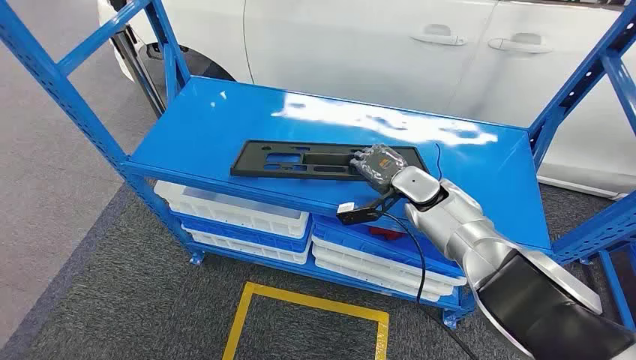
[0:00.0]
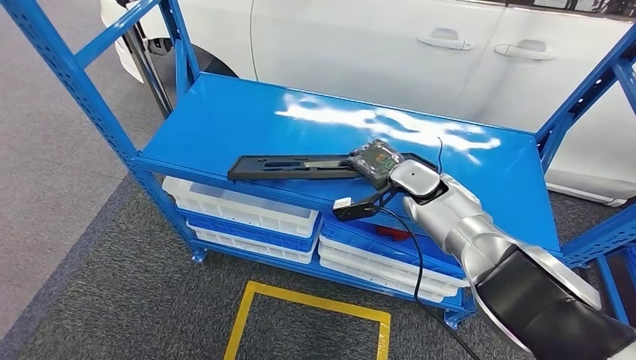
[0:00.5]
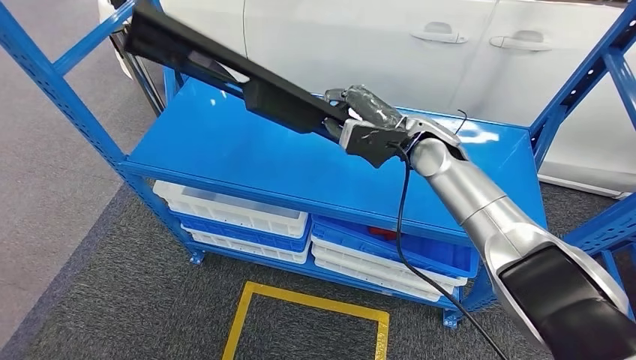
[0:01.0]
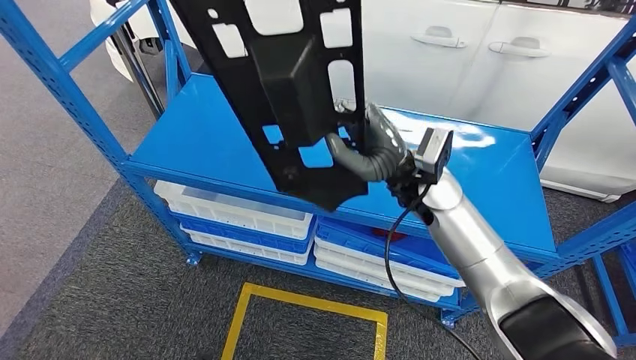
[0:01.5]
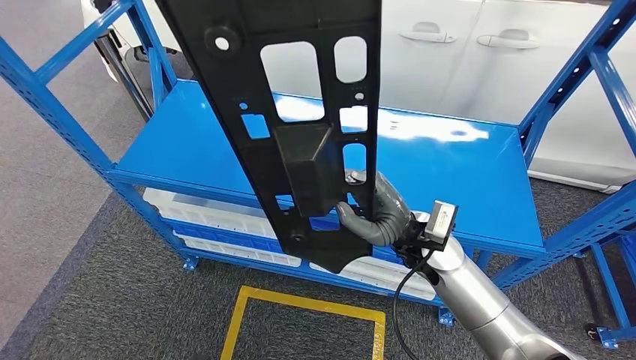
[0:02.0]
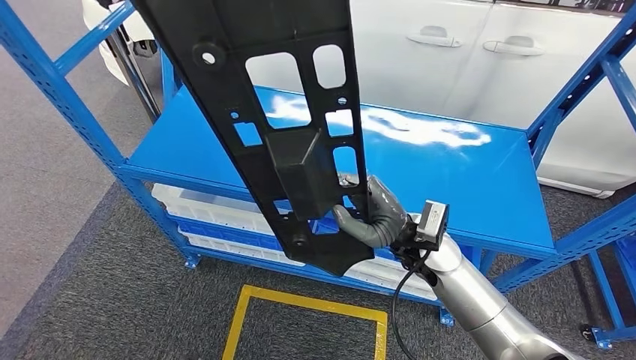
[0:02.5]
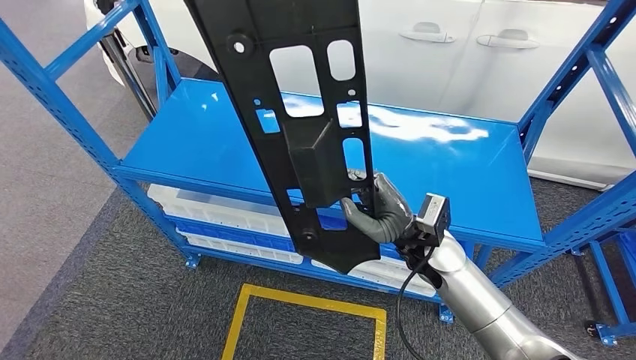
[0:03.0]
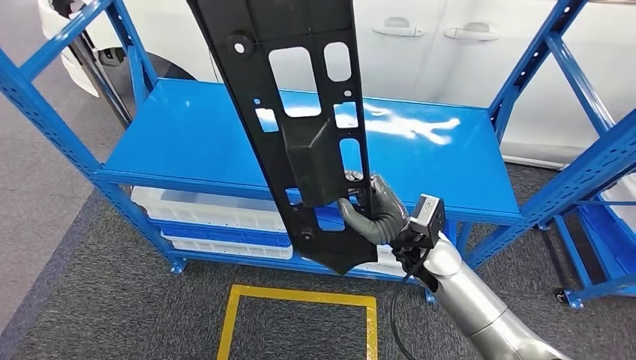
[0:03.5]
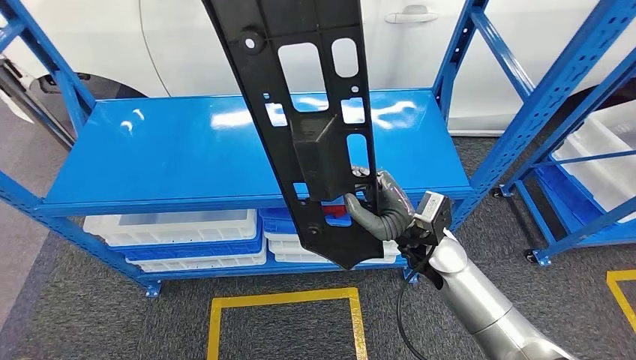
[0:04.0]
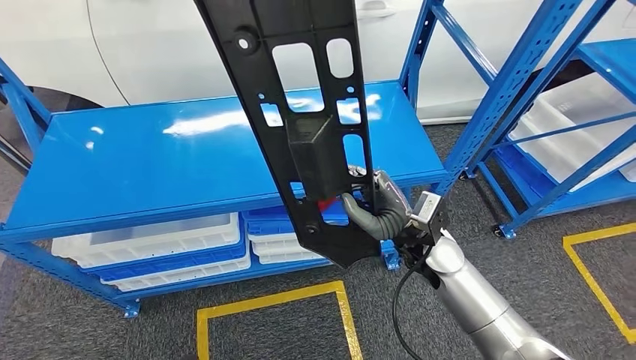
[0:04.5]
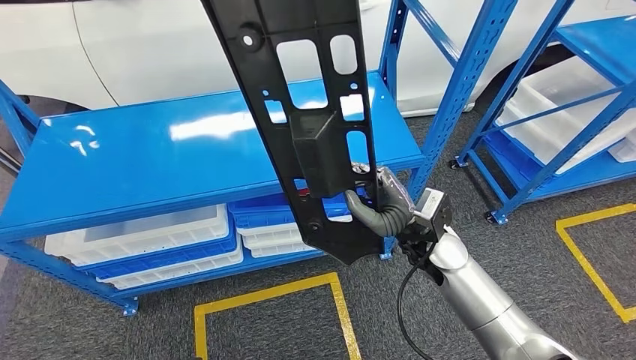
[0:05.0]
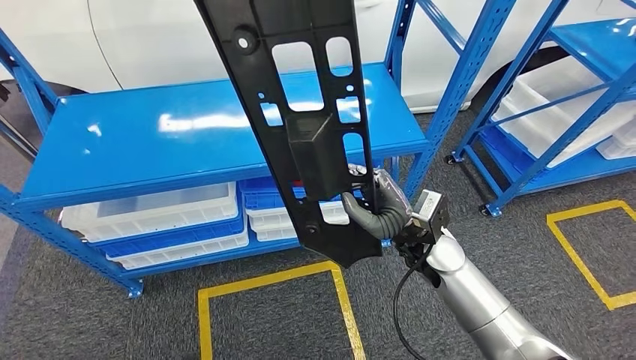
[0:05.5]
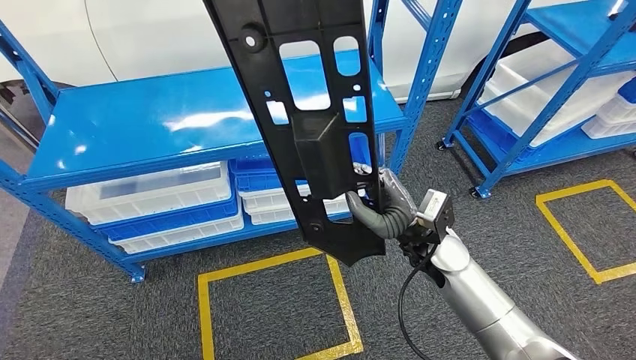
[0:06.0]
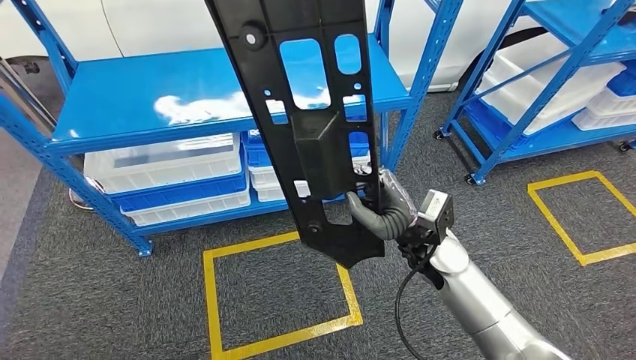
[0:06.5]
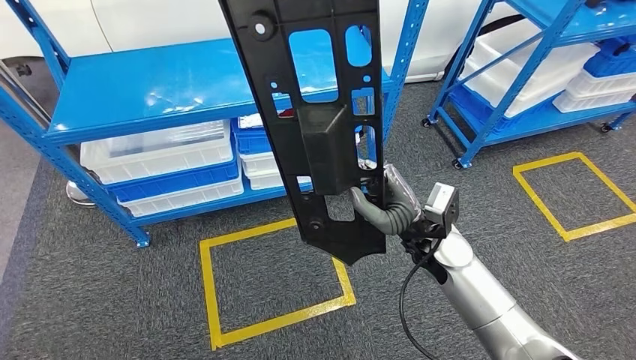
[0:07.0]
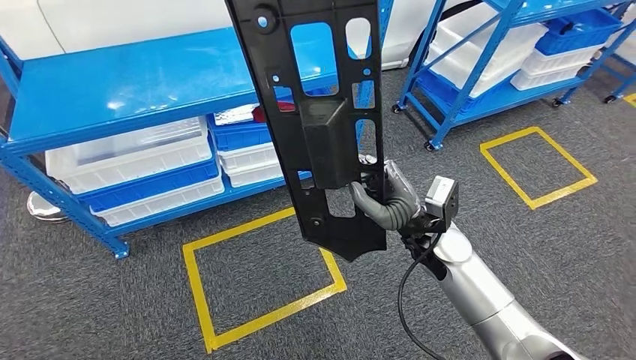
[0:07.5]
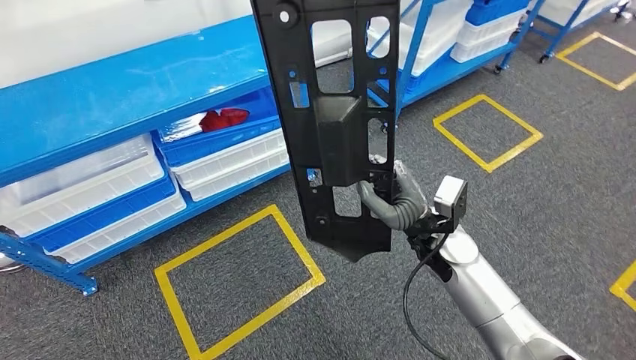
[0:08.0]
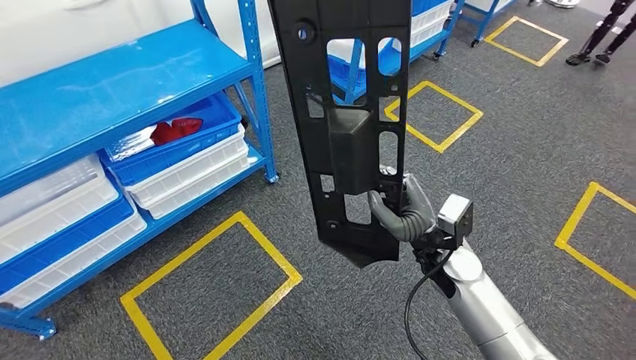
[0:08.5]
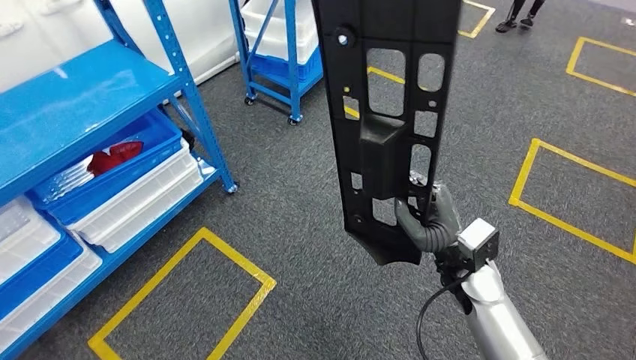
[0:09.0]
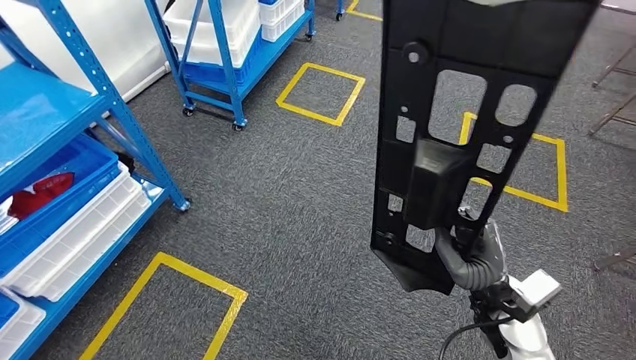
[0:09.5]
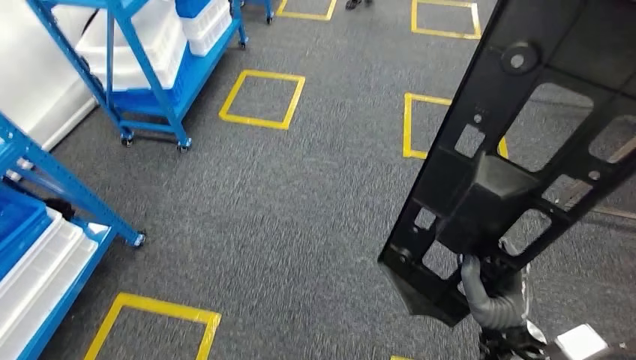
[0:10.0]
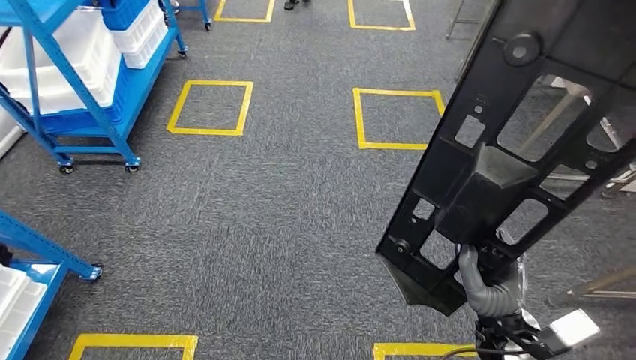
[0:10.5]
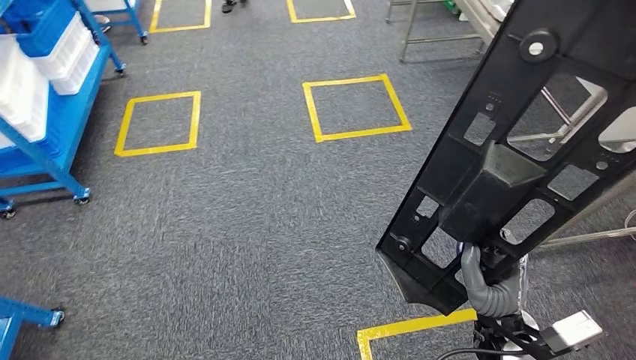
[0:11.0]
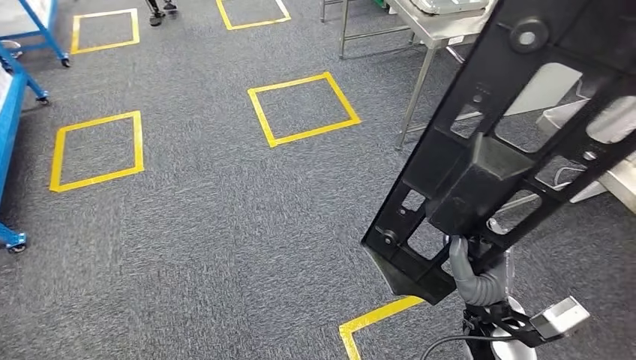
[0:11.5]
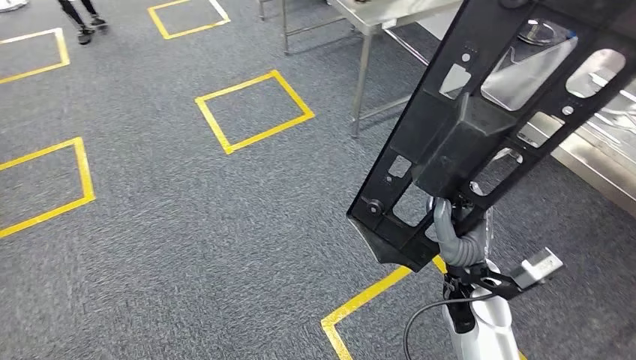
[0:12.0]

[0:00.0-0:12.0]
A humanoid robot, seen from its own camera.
Step, 0:00.0 to 0:02.5: Pick up the large material from the shelf.

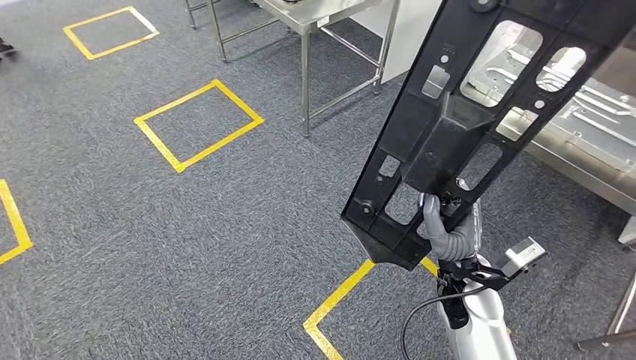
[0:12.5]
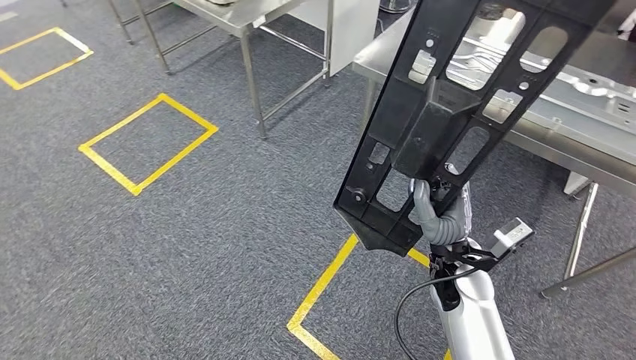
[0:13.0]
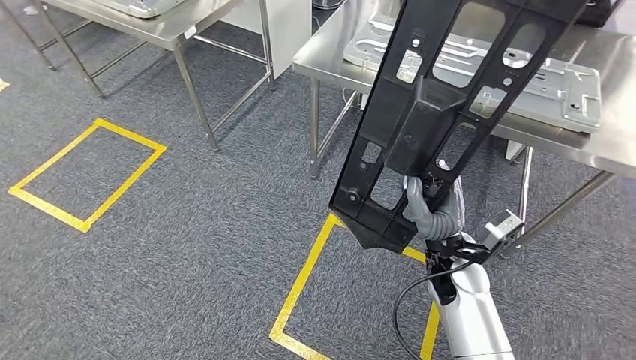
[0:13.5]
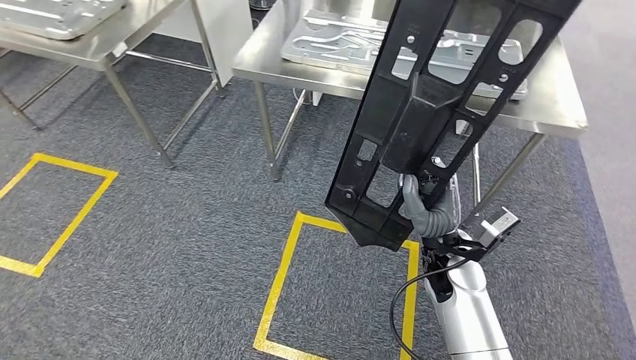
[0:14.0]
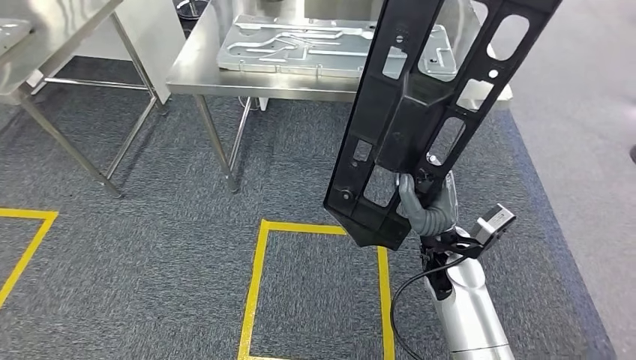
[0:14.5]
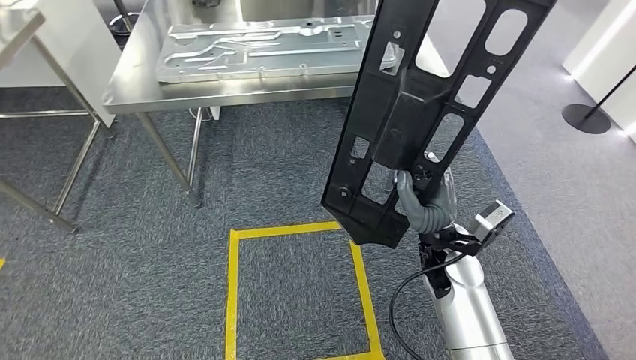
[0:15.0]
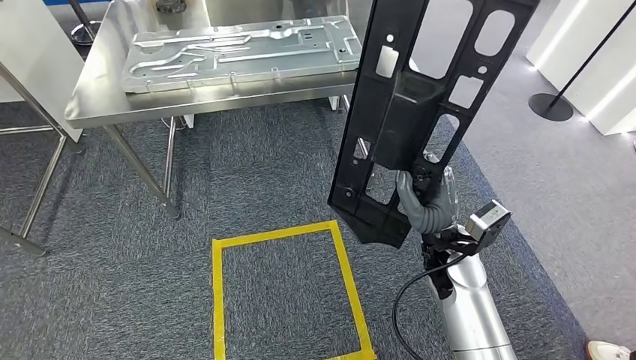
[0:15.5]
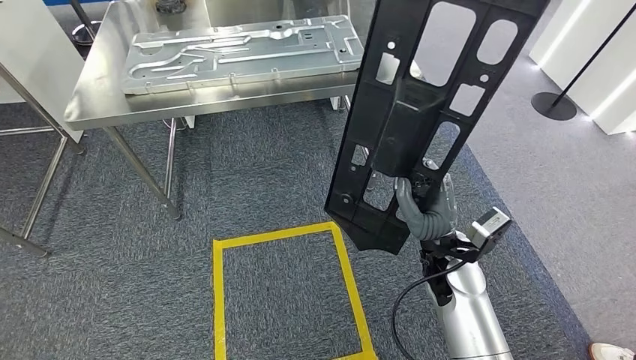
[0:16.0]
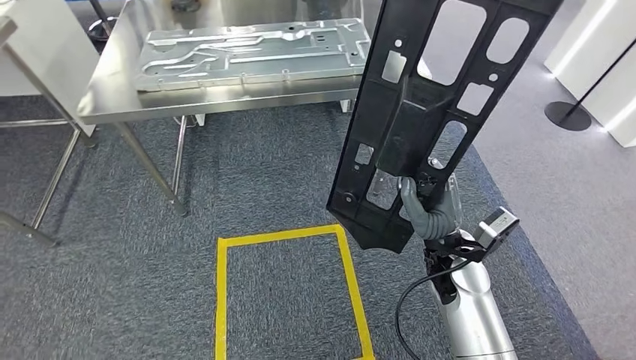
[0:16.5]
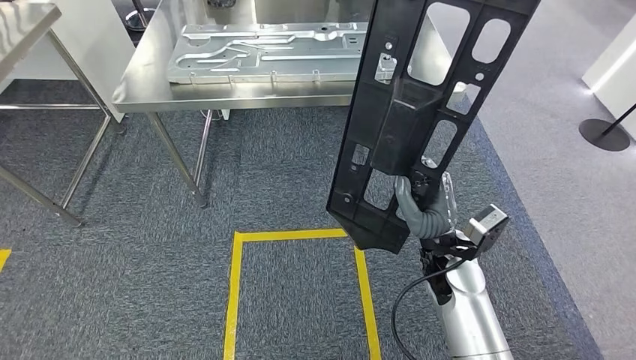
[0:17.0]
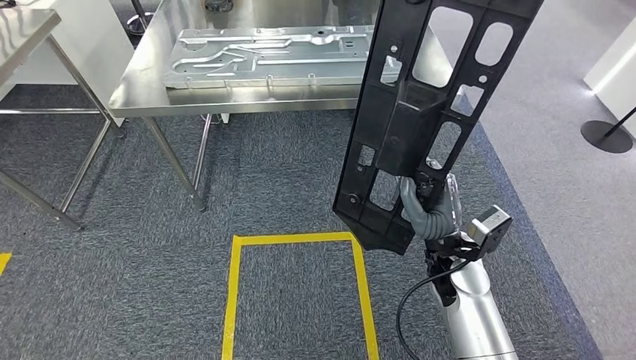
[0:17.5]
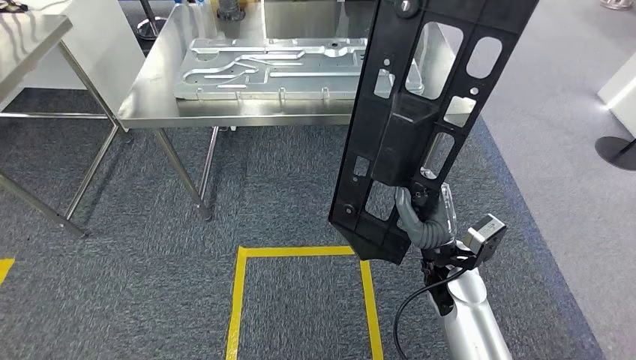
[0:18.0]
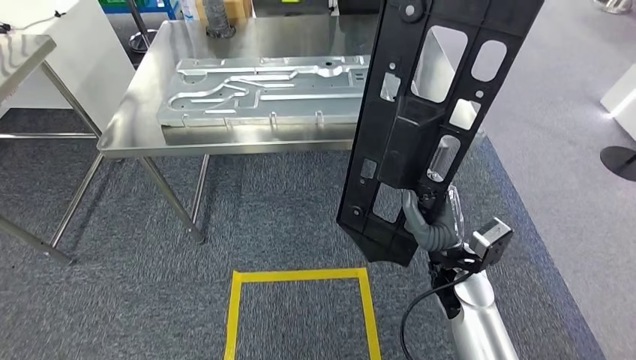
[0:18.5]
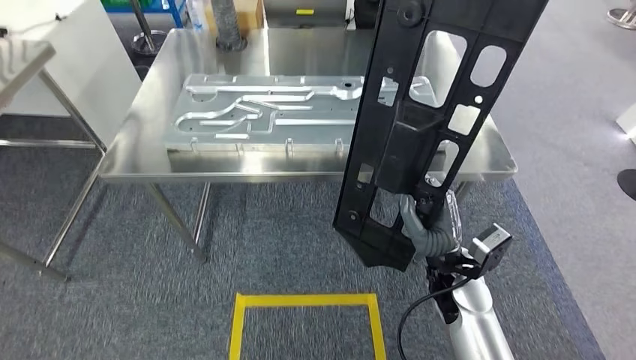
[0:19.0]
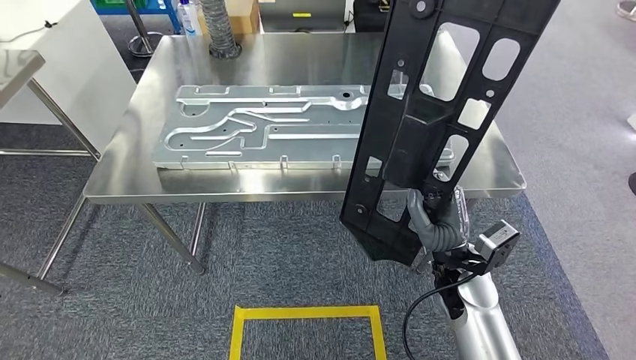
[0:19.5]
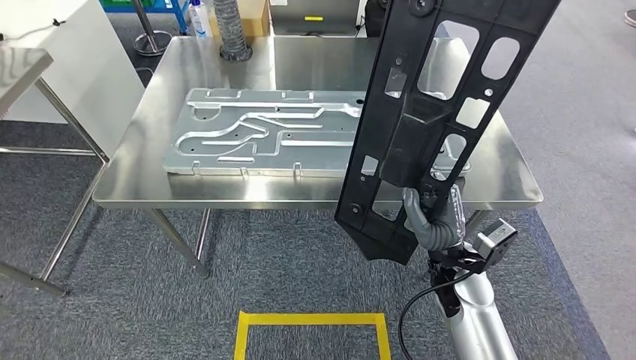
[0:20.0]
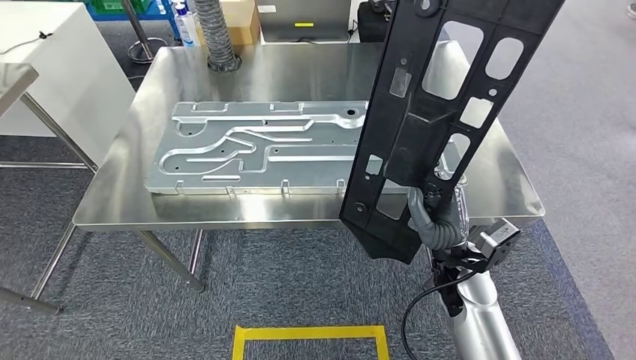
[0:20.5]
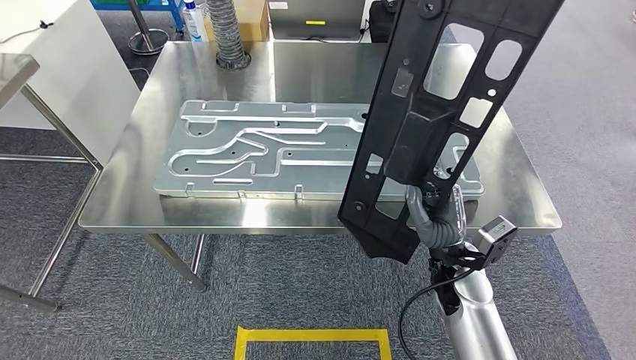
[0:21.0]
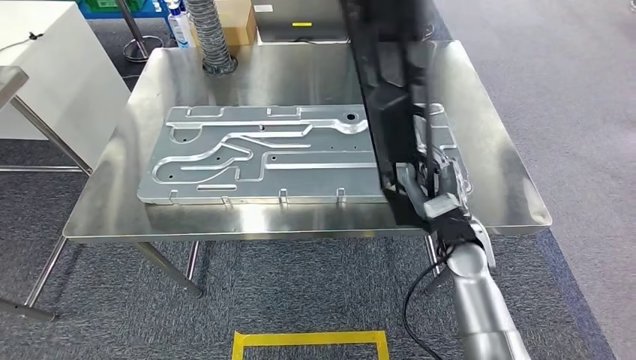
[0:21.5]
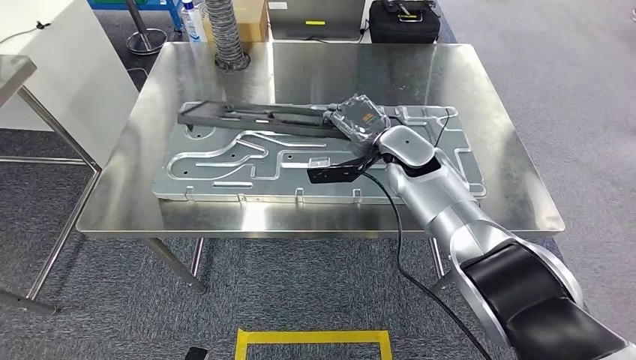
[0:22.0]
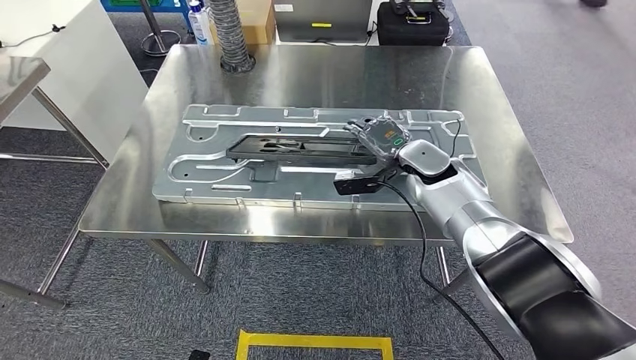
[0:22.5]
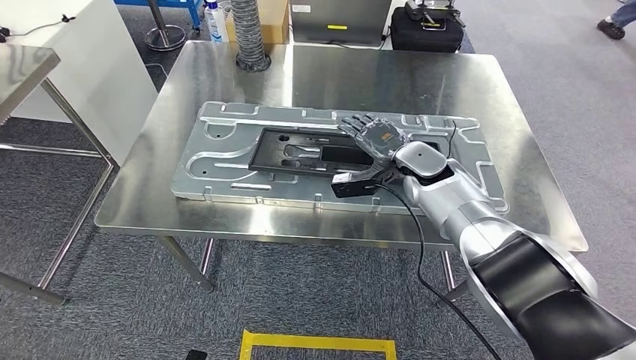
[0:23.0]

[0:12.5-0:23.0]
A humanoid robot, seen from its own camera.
Step, 0:12.5 to 0:19.5: Move the large material to the workbench.
